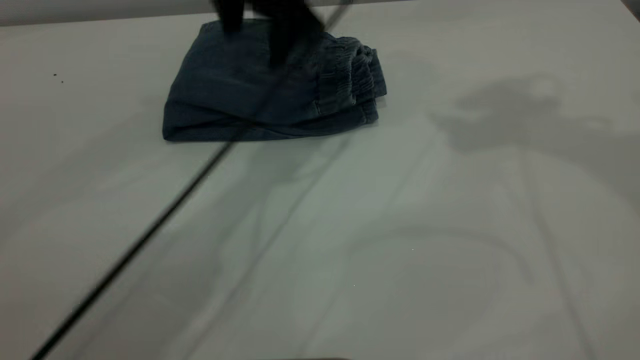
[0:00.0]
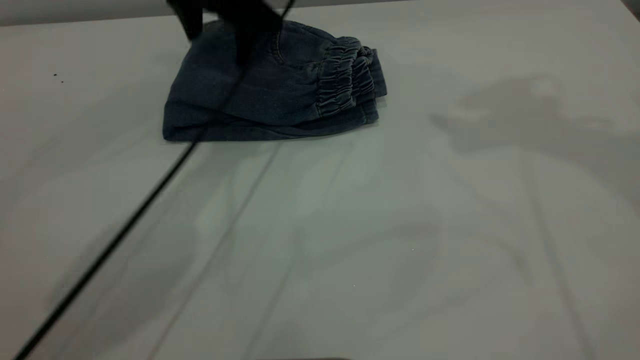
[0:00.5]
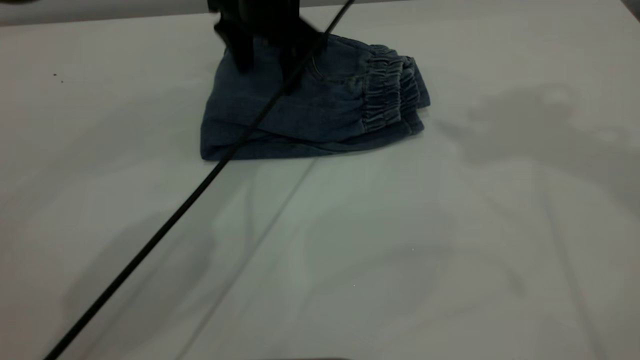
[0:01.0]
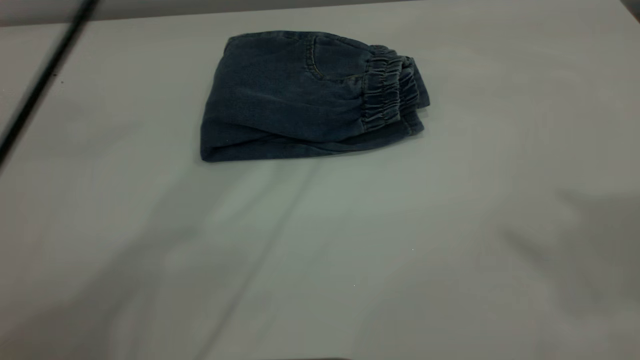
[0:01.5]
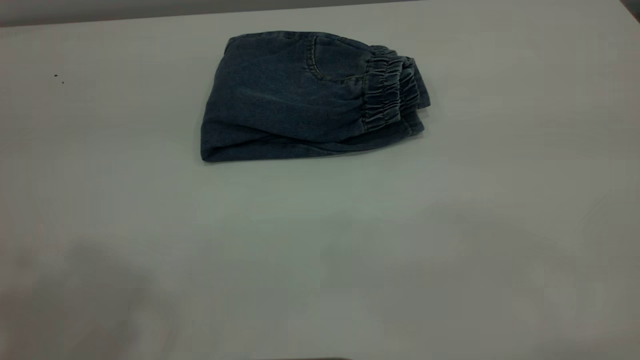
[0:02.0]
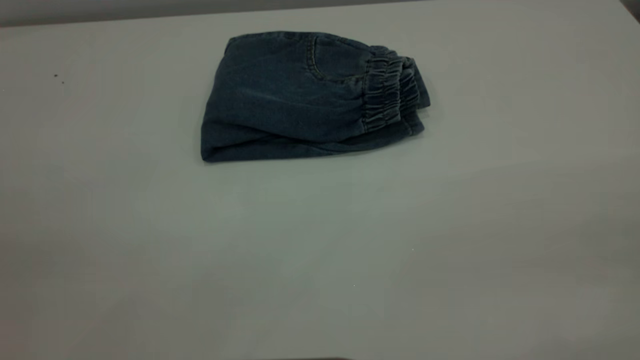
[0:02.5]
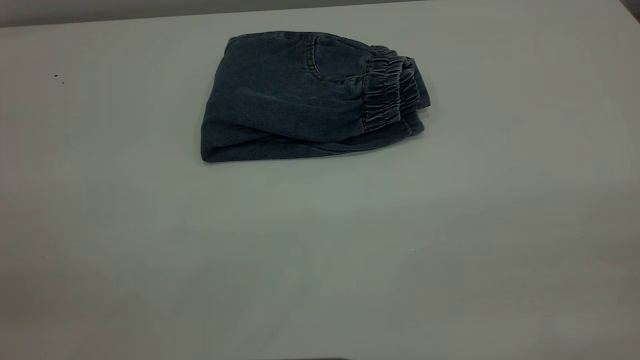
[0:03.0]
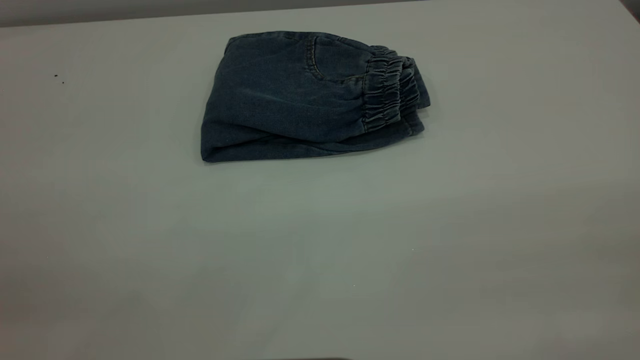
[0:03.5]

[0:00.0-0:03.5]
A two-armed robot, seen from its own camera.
0:00.0 to 0:02.0: The right gripper is displaced backward by some 35 cm. Meanwhile the left gripper shifts approximately 40 cm backward, upward and to the left.

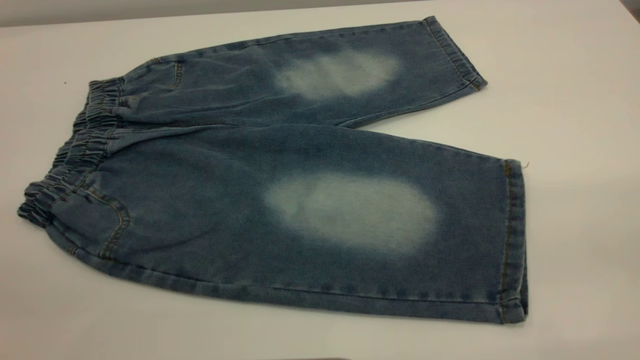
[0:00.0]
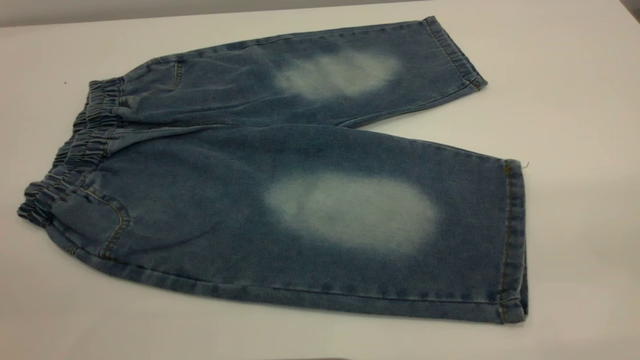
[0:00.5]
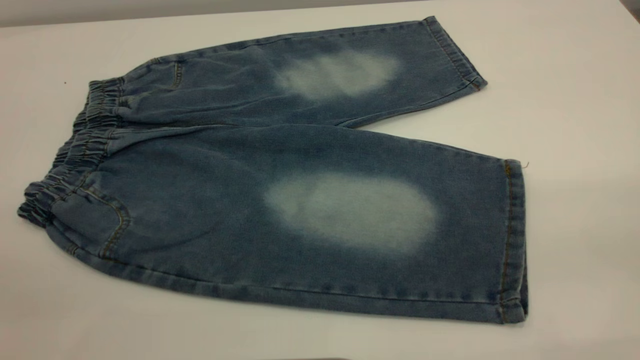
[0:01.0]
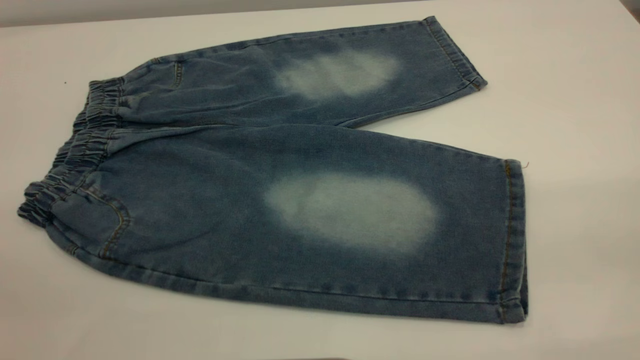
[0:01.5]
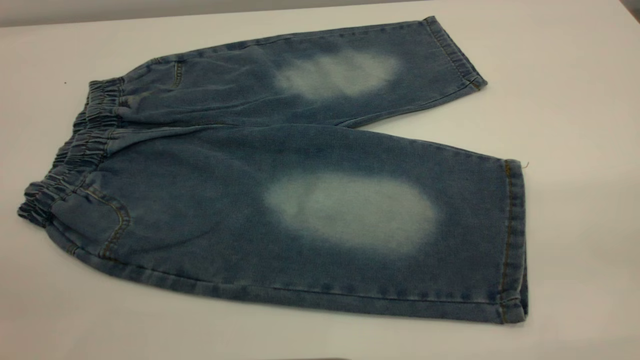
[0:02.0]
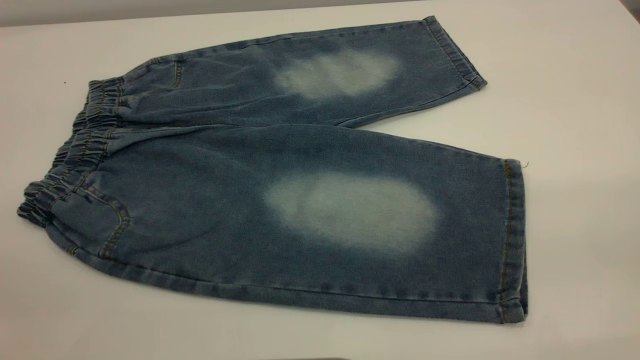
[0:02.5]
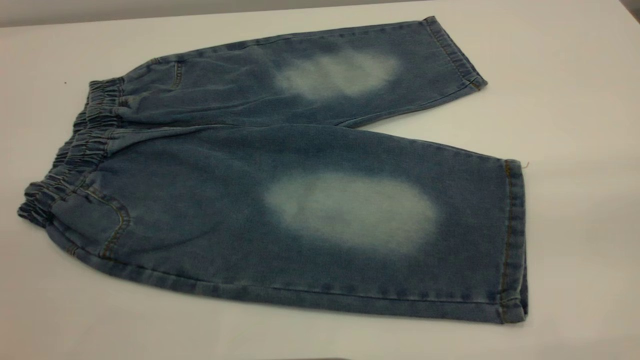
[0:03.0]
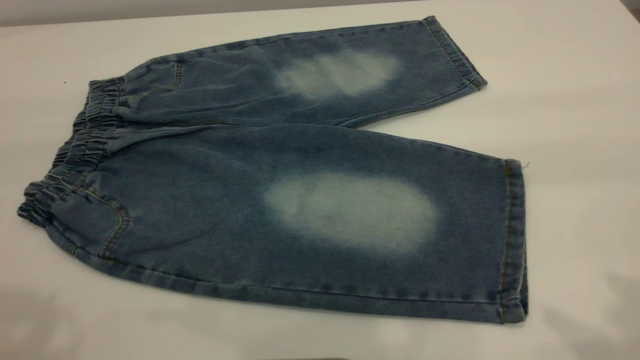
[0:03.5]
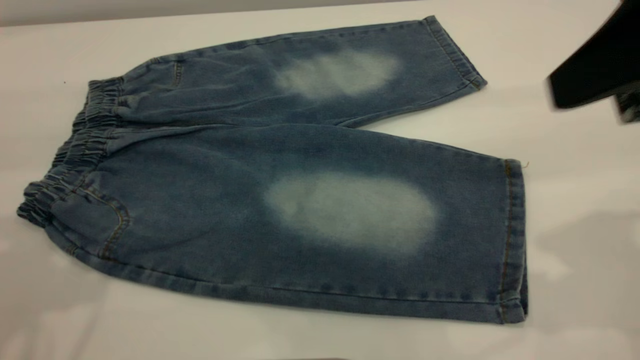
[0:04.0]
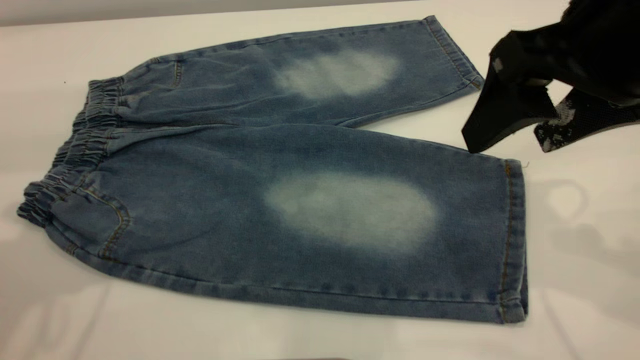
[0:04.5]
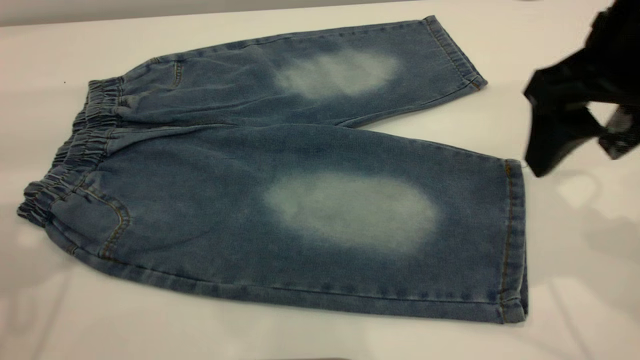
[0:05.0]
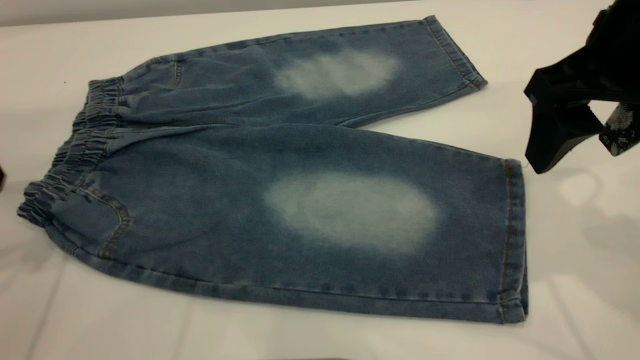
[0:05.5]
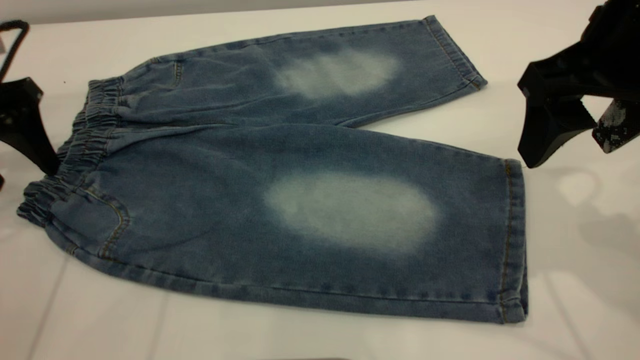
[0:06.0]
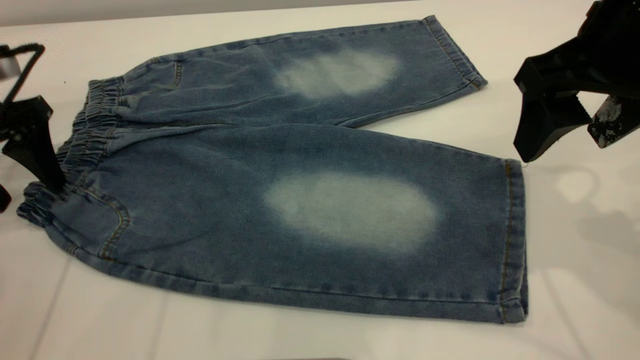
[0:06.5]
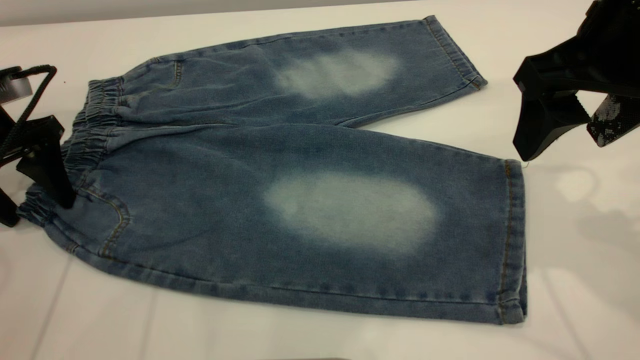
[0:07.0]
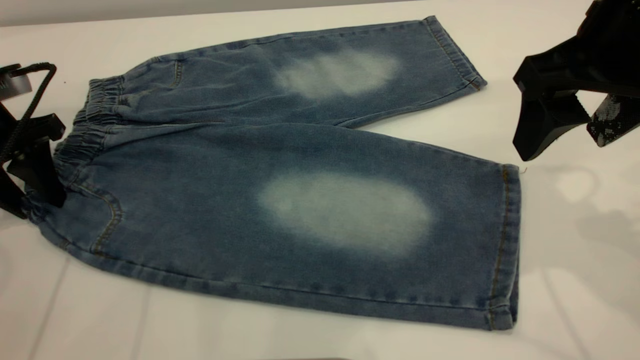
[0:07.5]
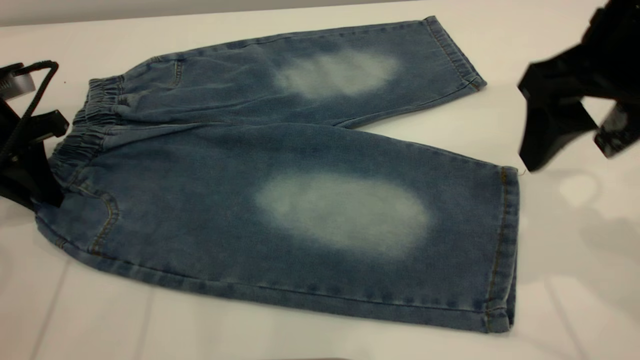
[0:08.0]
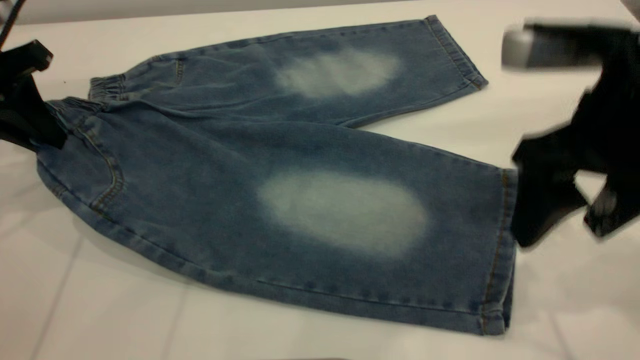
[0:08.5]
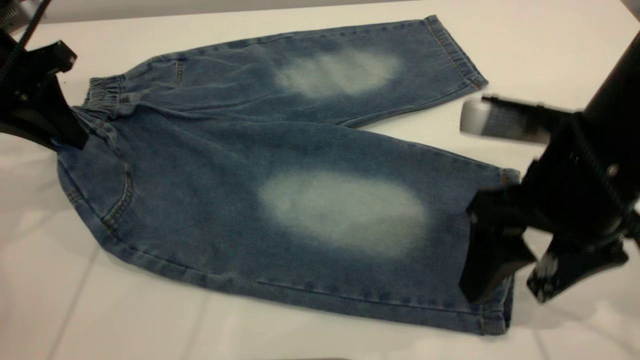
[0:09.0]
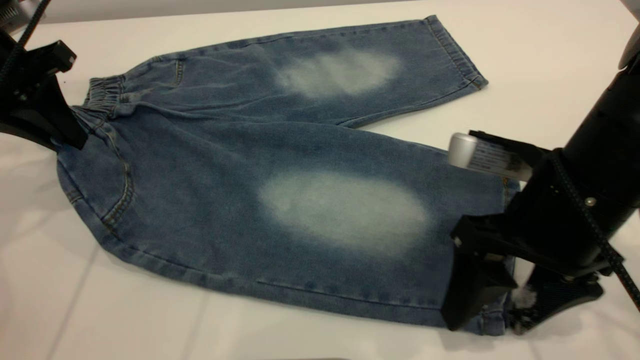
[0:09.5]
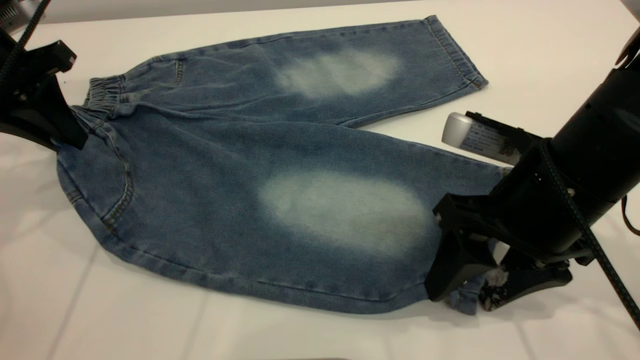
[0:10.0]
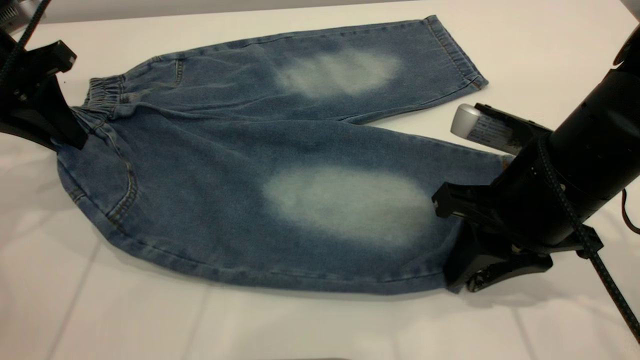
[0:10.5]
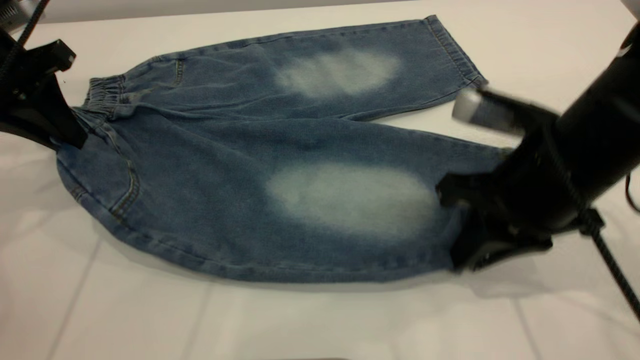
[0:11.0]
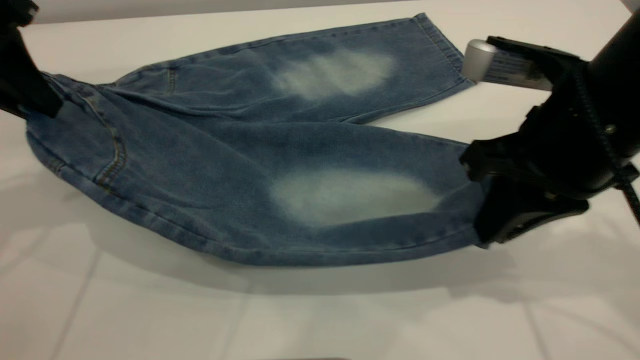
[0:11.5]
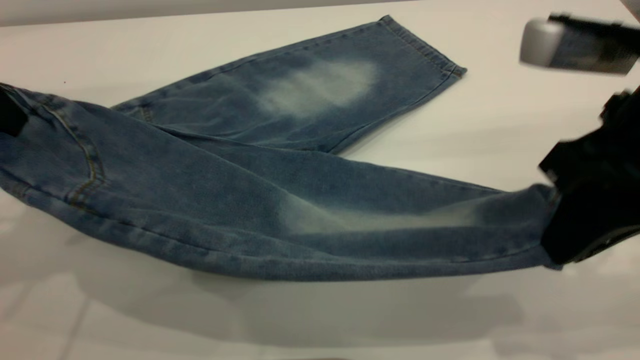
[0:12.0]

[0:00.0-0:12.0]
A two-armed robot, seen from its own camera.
0:00.0 to 0:02.0: Both grippers stay put.
0:02.0 to 0:04.0: The right gripper travels forward by some 20 cm.
0:04.0 to 0:06.0: The left gripper travels downward and forward by roughly 20 cm; the right gripper goes some 5 cm forward.
0:06.0 to 0:08.0: The left gripper closes.
0:08.0 to 0:10.0: The left gripper shifts about 5 cm upward. Meanwhile the right gripper travels downward by about 10 cm.
0:10.0 to 0:12.0: The right gripper moves upward, some 10 cm, and closes its fingers. Meanwhile the left gripper travels backward and upward by approximately 10 cm.

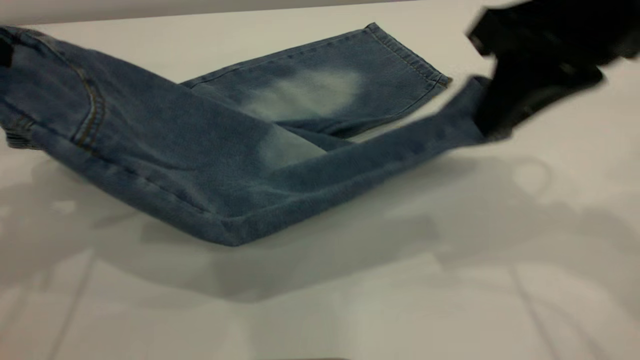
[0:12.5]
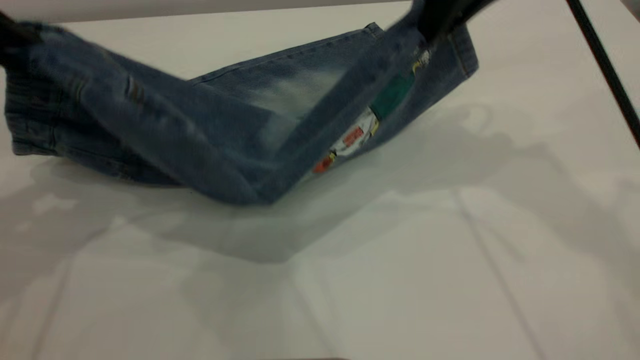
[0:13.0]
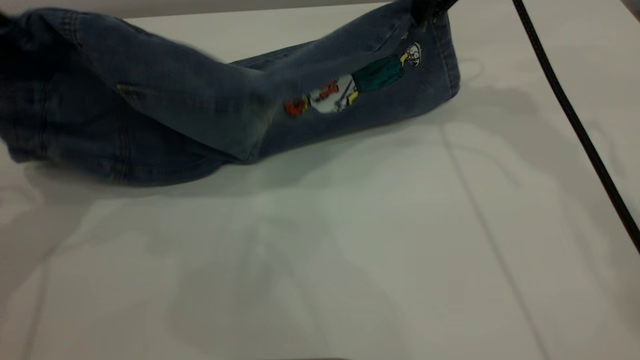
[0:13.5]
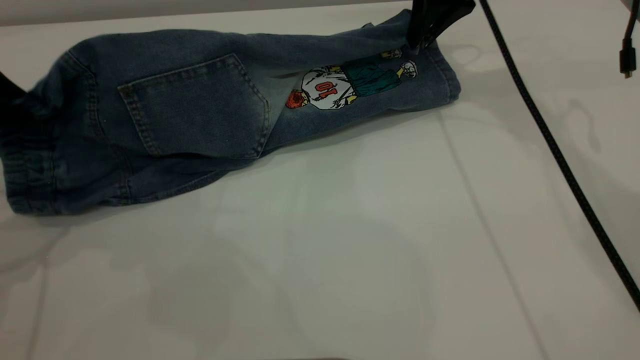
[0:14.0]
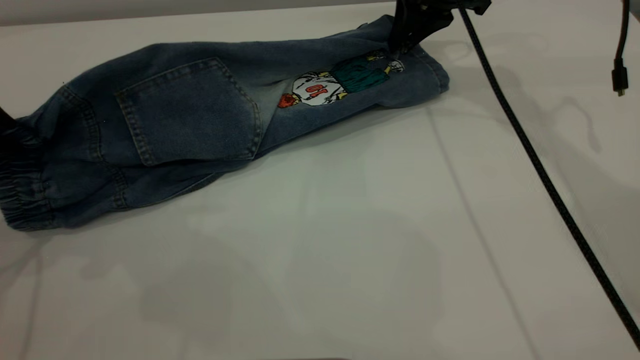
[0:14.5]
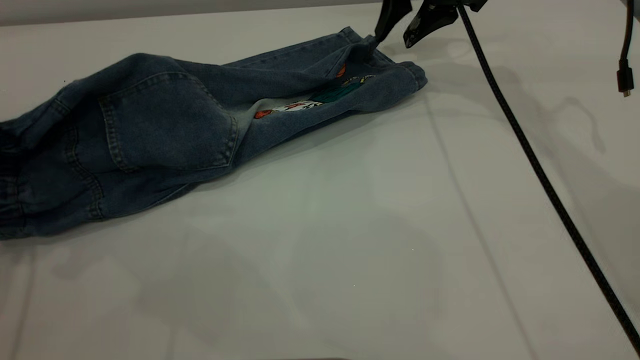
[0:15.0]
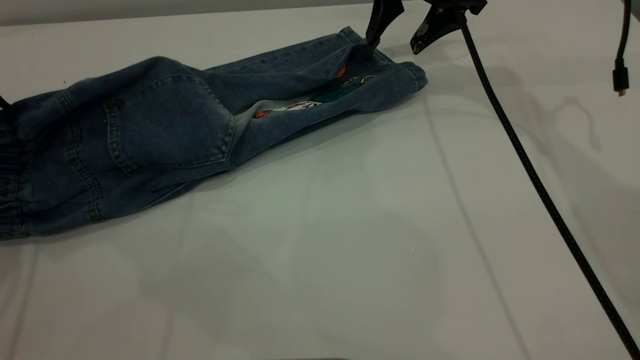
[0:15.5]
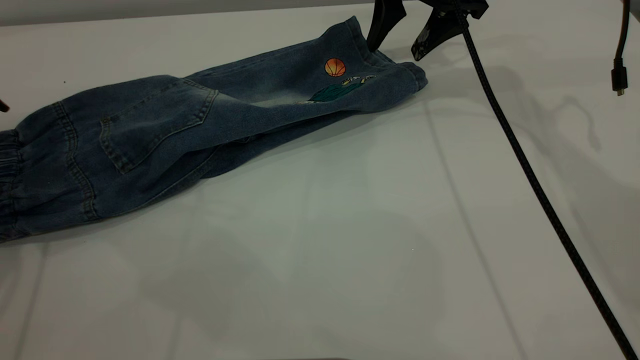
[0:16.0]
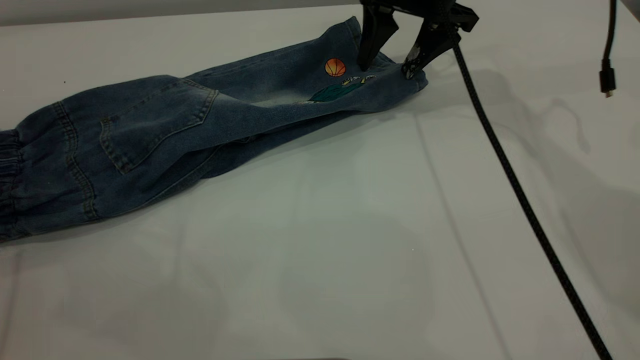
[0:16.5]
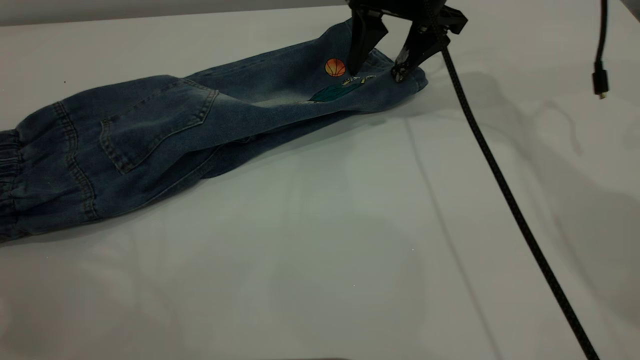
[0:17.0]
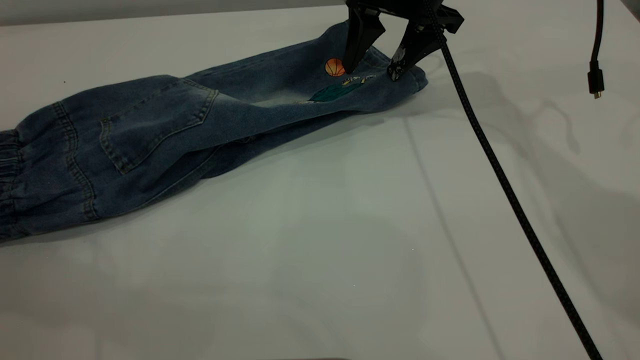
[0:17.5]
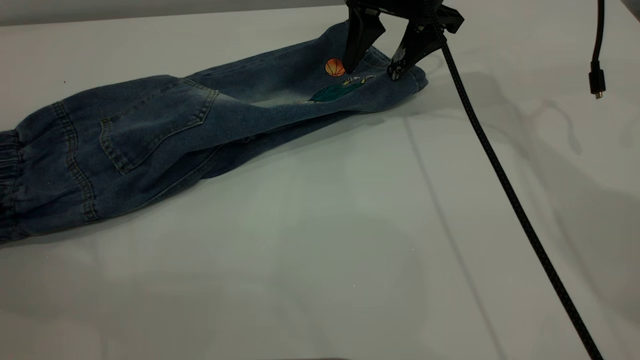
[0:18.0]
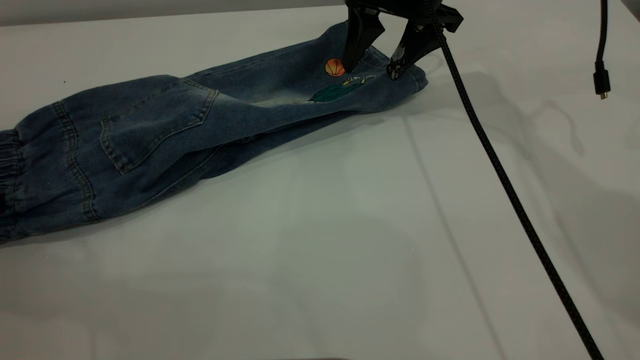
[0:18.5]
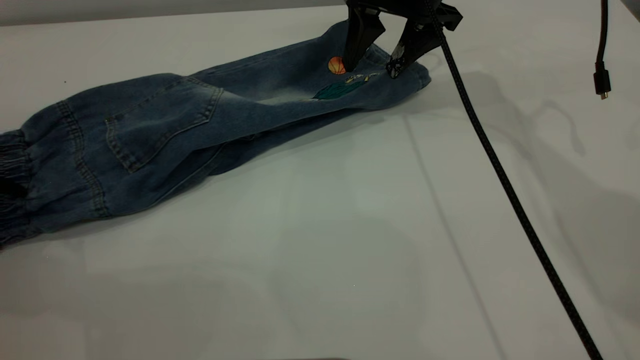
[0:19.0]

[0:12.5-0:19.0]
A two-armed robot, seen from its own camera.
0:12.5 to 0:14.5: The right gripper is displaced forward by roughly 25 cm. Meanwhile the left gripper travels downward by about 10 cm.
0:14.5 to 0:17.0: The left gripper moves to the left, roughly 10 cm, and opens up. The right gripper opens up.
0:17.0 to 0:19.0: The left gripper is displaced downward by about 10 cm.
